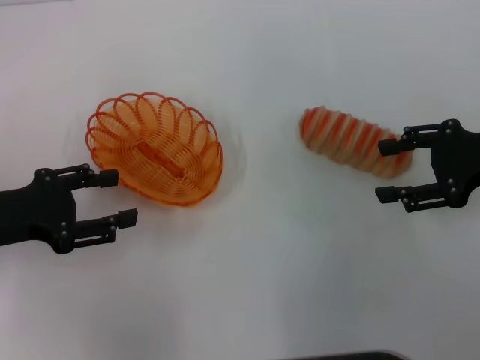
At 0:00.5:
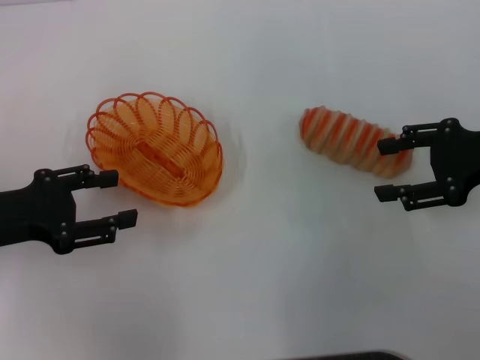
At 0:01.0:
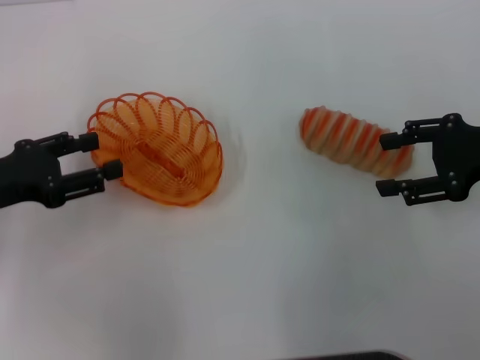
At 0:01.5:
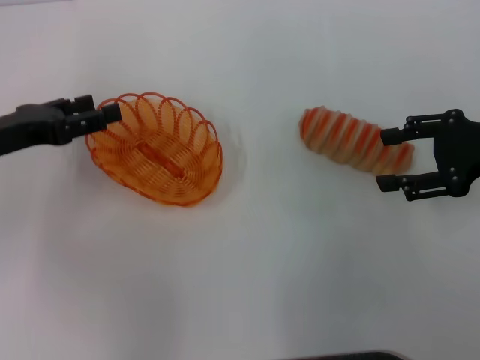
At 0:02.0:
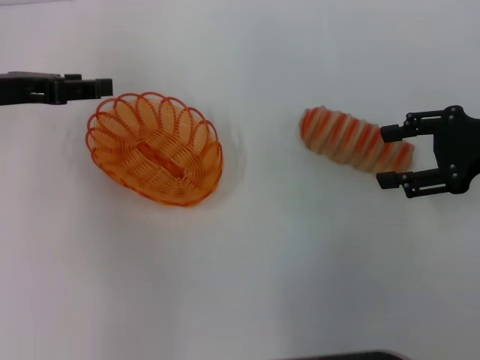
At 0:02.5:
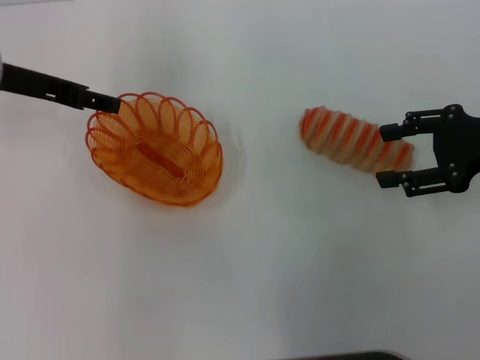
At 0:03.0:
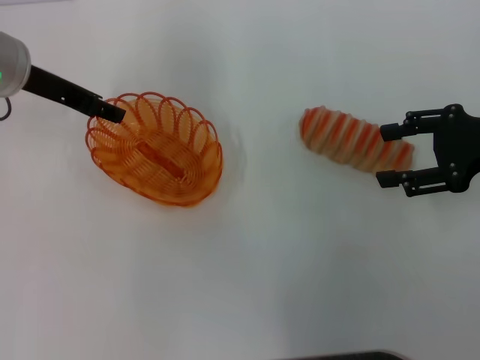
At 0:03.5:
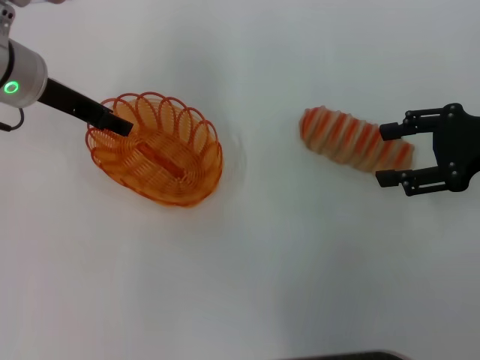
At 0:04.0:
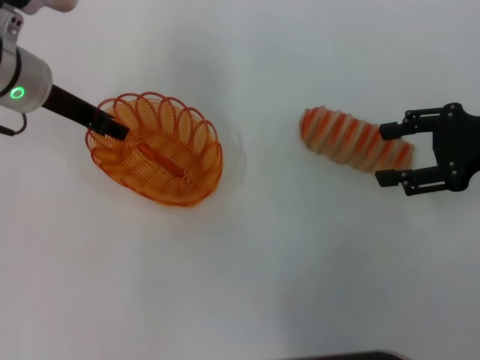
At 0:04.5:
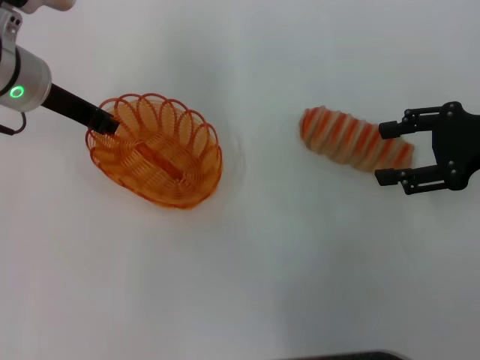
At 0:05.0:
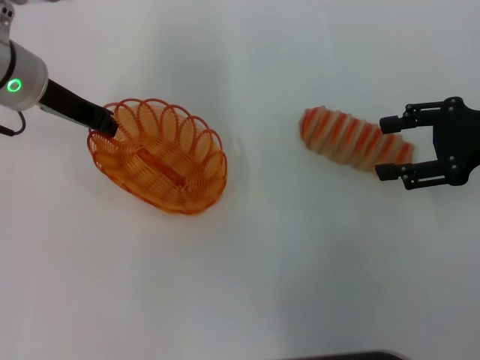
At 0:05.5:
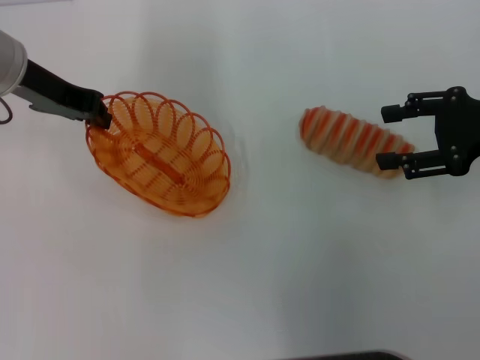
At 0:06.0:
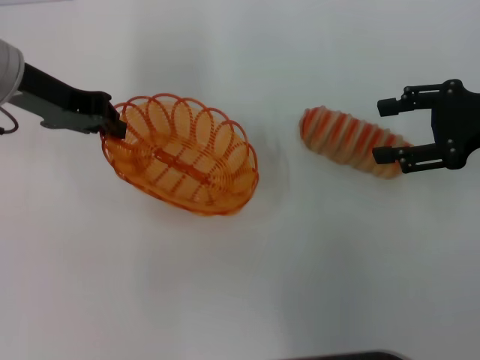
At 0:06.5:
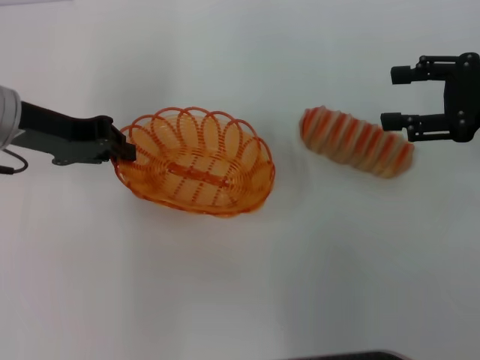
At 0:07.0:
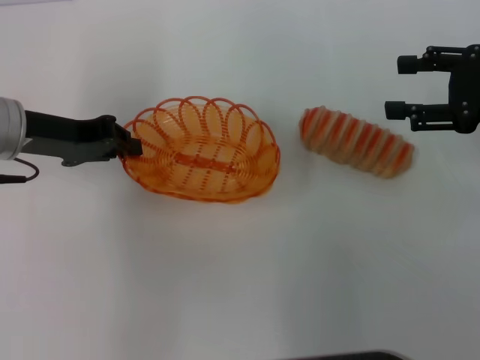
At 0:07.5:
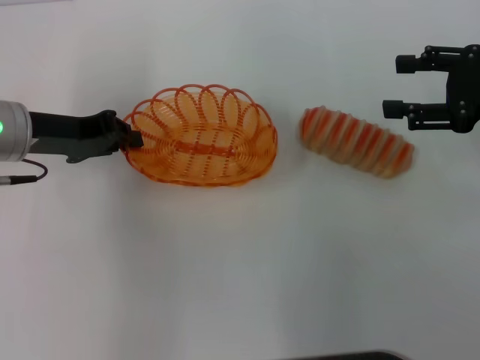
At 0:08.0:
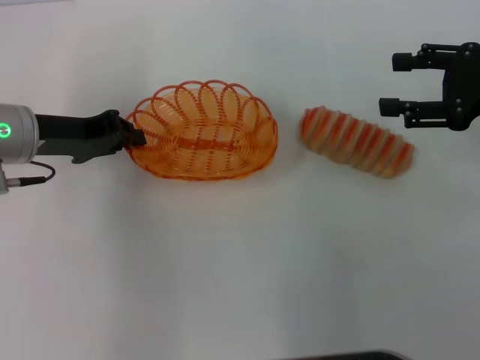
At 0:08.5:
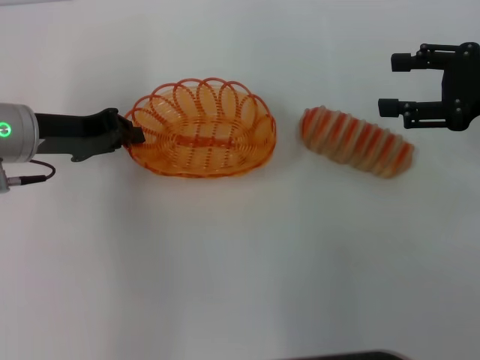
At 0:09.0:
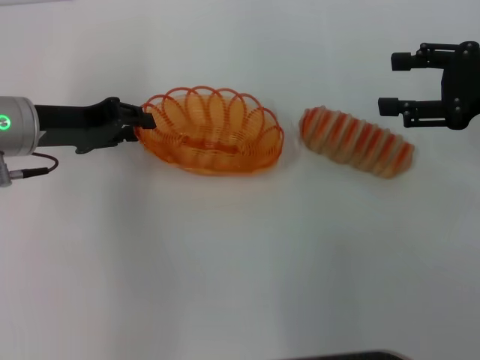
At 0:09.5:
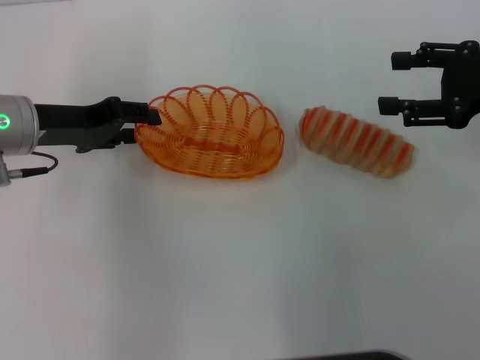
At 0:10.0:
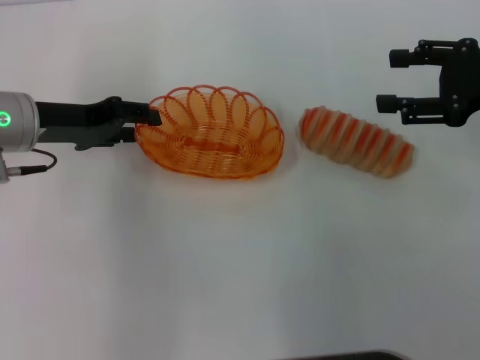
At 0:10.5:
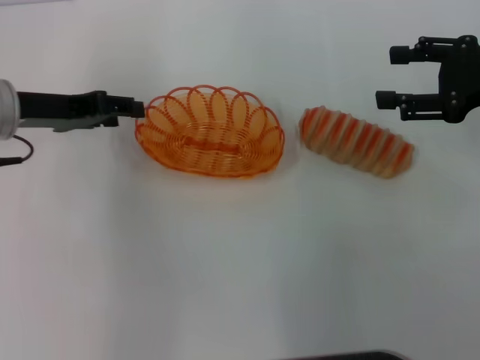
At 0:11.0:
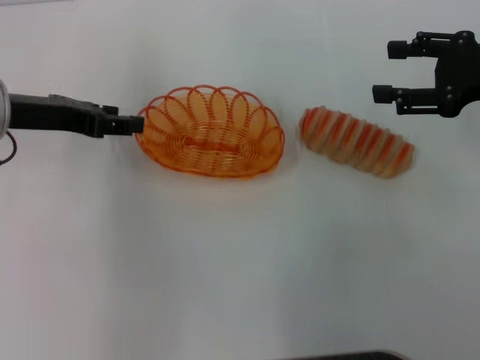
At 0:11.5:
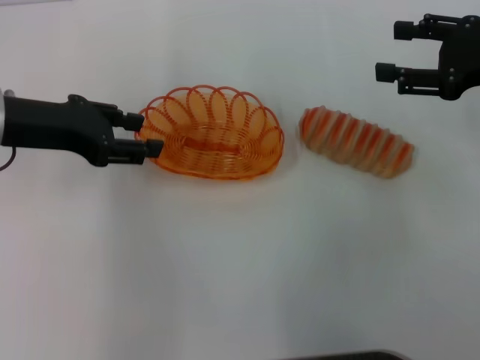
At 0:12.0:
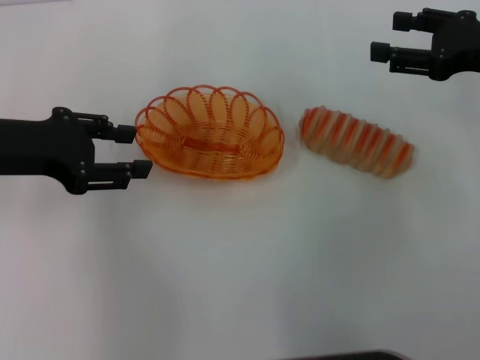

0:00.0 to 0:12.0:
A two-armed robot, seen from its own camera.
Step, 0:00.0 to 0:06.0: Pick up the basket with the left gripper.
Step, 0:06.5 to 0:11.5: Place the basket in the center of view with the left gripper.
0:00.0 to 0:02.0: The left gripper goes approximately 10 cm forward and upward.
0:02.0 to 0:04.0: The left gripper goes some 10 cm to the right.
0:04.0 to 0:06.0: The left gripper closes its fingers.
0:06.0 to 0:08.0: The left gripper moves downward, approximately 5 cm.
0:08.0 to 0:10.0: The left gripper opens up.
0:10.0 to 0:12.0: The left gripper goes roughly 5 cm backward.

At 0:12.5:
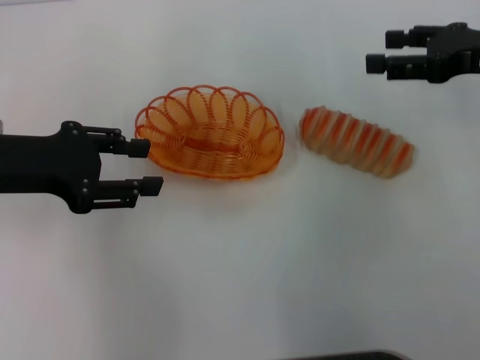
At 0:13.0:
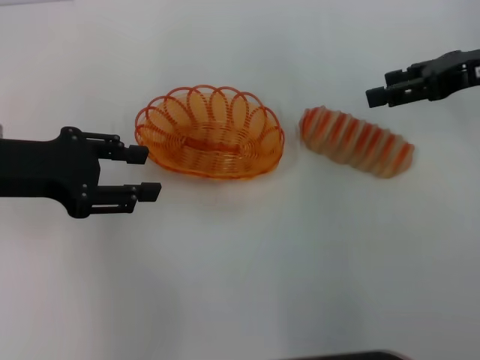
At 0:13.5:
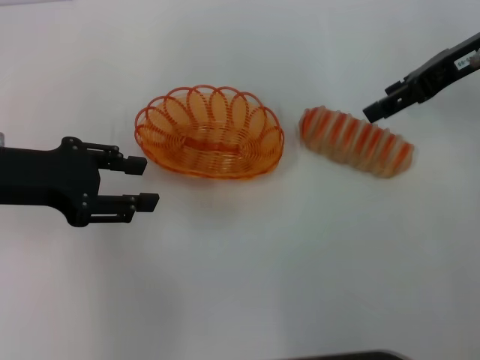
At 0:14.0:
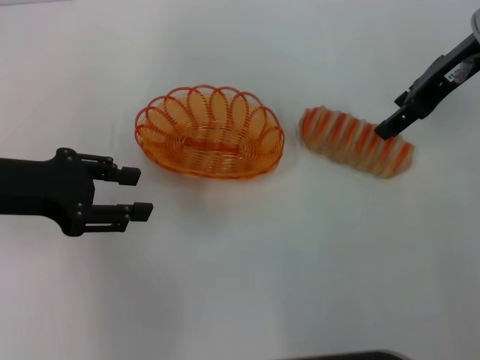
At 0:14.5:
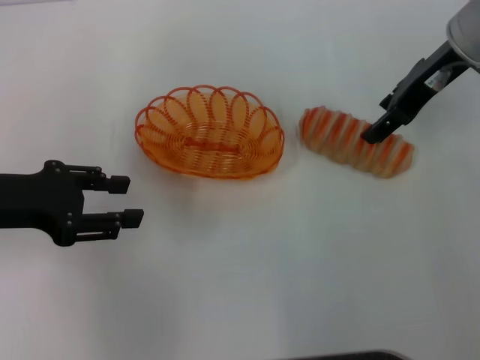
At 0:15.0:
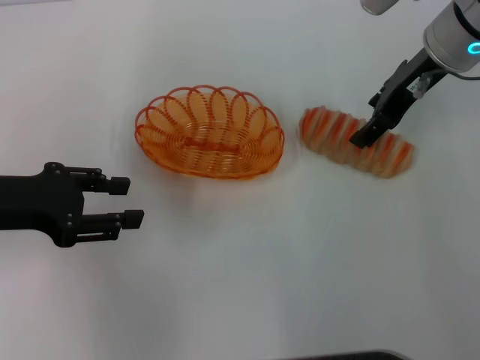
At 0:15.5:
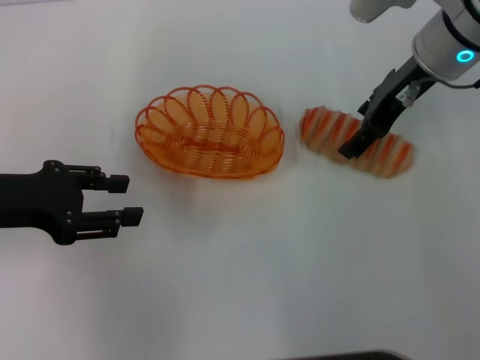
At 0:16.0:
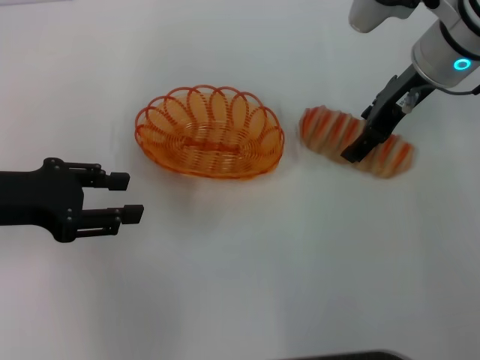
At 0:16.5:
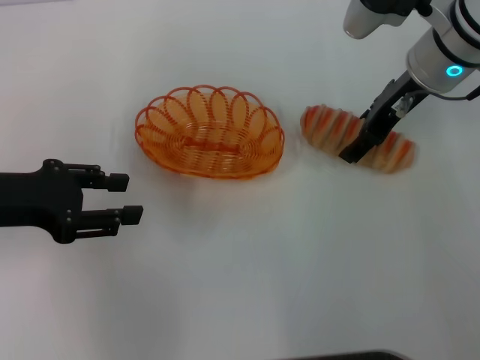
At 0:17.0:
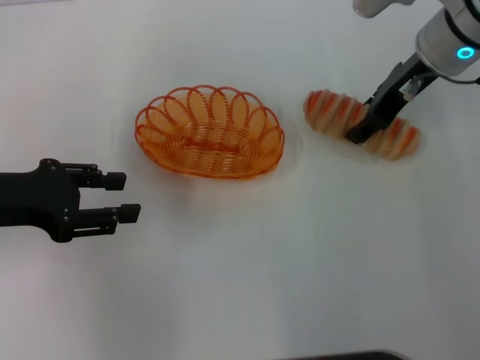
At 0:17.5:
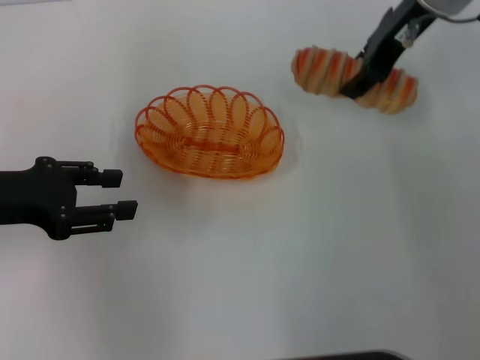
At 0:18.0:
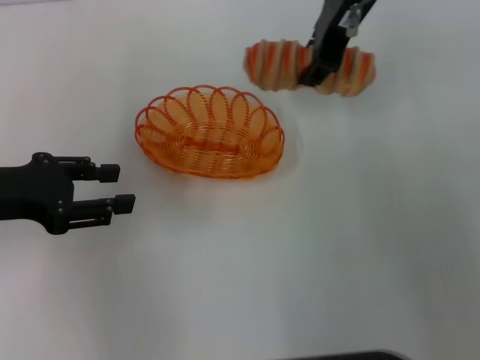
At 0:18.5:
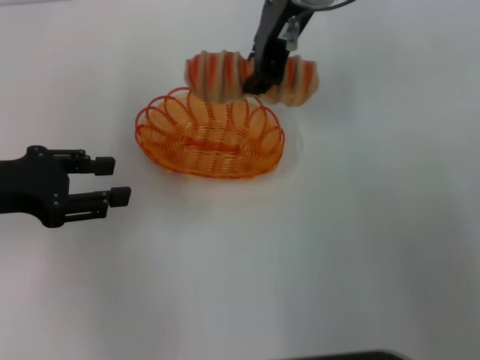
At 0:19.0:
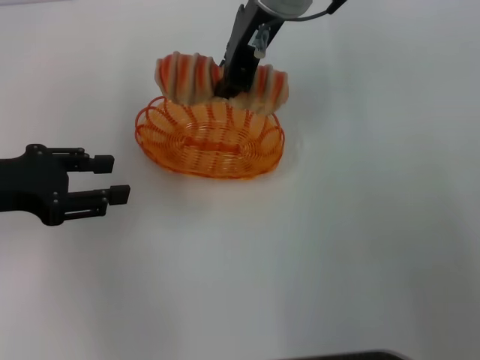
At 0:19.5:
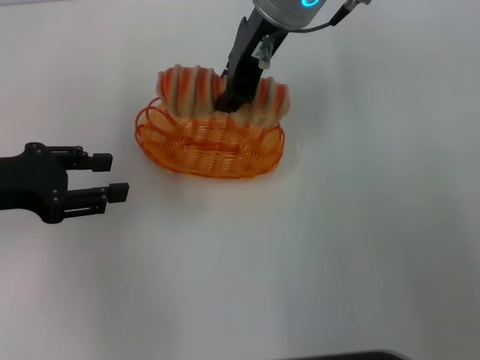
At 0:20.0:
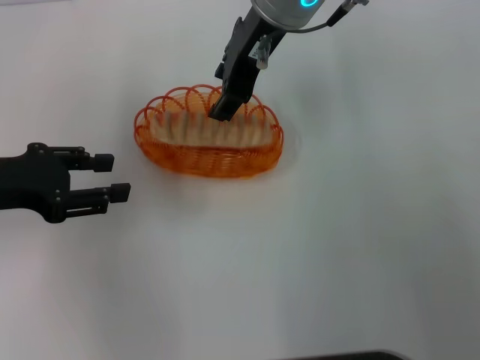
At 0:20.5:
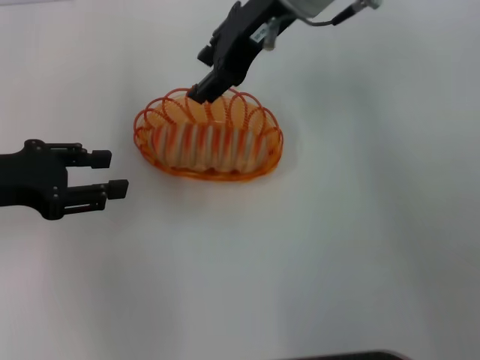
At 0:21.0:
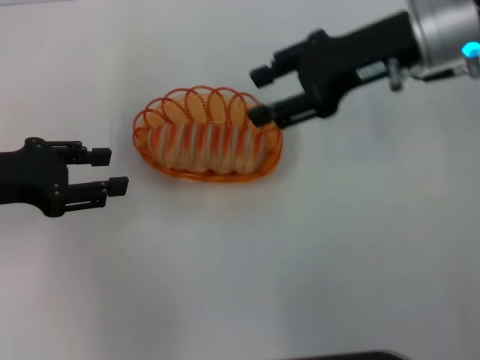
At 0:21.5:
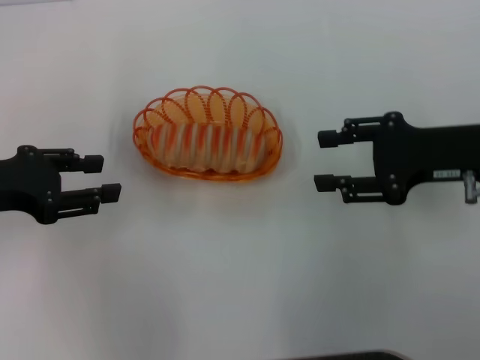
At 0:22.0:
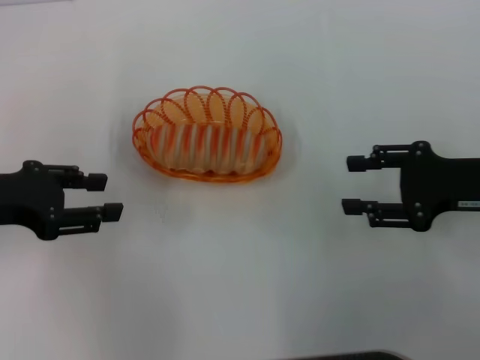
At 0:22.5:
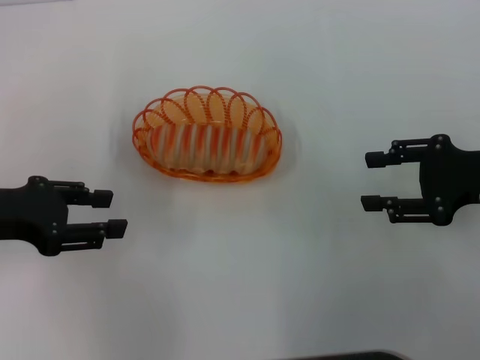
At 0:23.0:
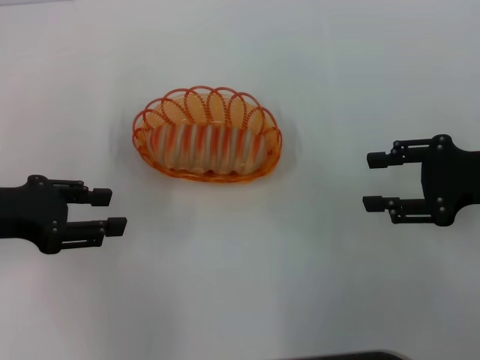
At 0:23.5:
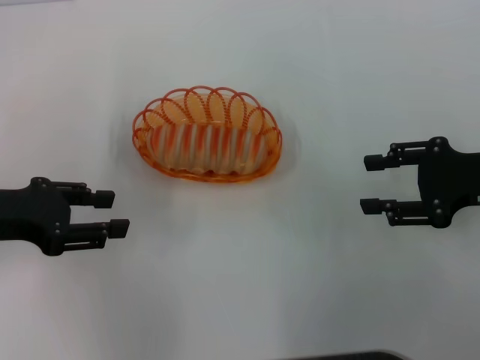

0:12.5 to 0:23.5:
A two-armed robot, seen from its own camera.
Step, 0:12.5 to 0:17.0: Pick up the long bread with the right gripper.
Step, 0:17.5 to 0:20.5: Place the long bread into the basket with the right gripper.
0:12.5 to 0:14.5: The right gripper shifts roughly 10 cm to the left and forward.
0:14.5 to 0:16.0: The grippers make only small movements.
0:16.0 to 0:18.0: The right gripper is displaced to the left and upward by some 15 cm, and closes up.
0:18.0 to 0:20.0: The right gripper moves to the left, some 5 cm.
0:20.0 to 0:21.5: The right gripper is displaced to the right, downward and backward by approximately 30 cm.
0:21.5 to 0:23.5: The grippers make only small movements.
